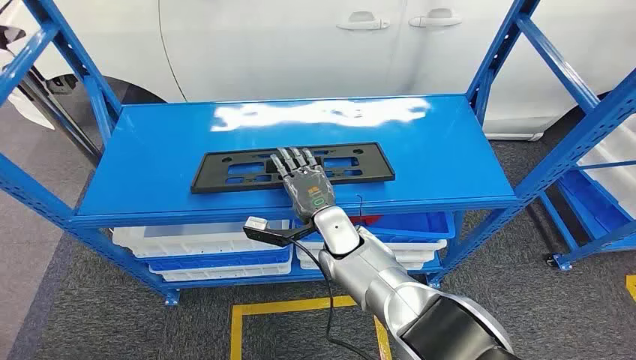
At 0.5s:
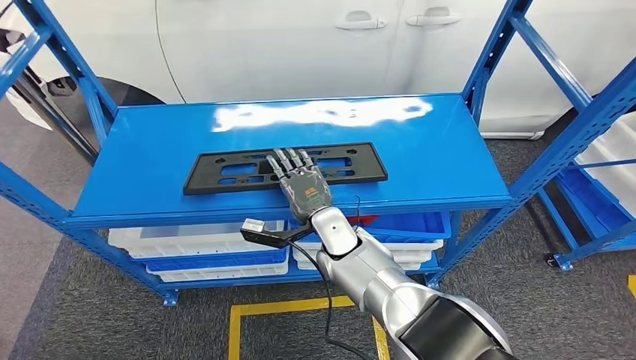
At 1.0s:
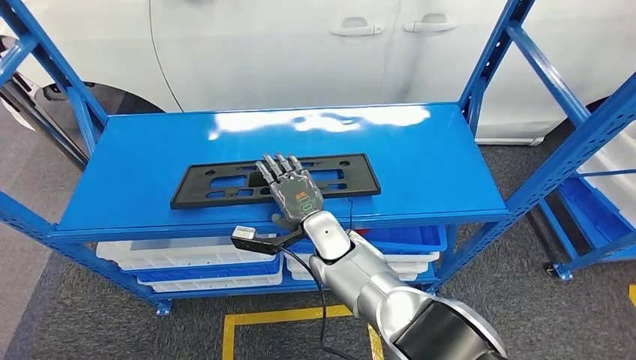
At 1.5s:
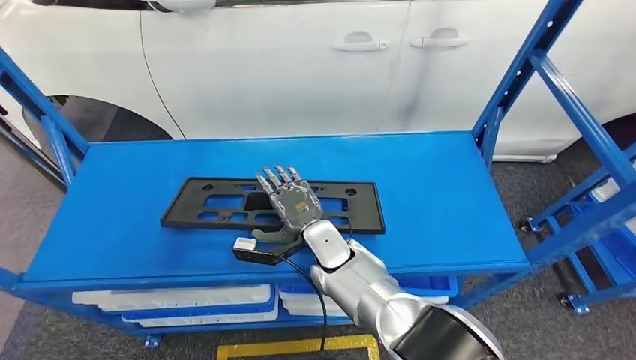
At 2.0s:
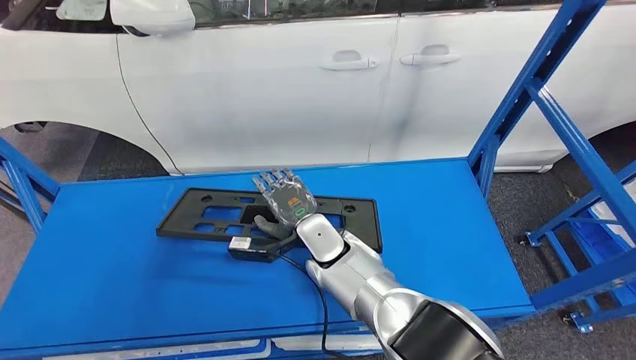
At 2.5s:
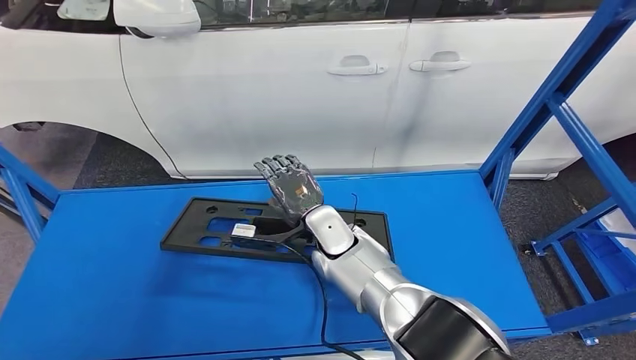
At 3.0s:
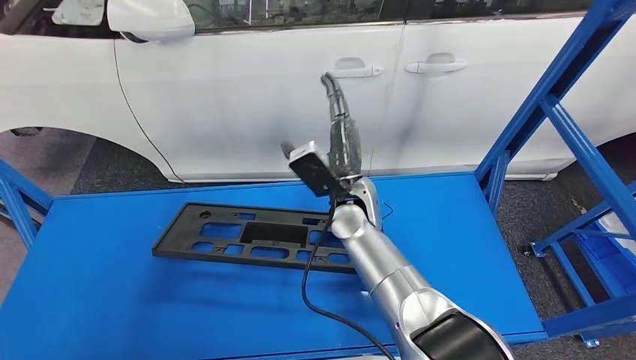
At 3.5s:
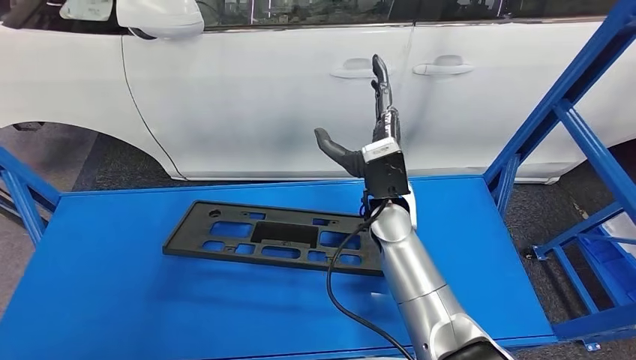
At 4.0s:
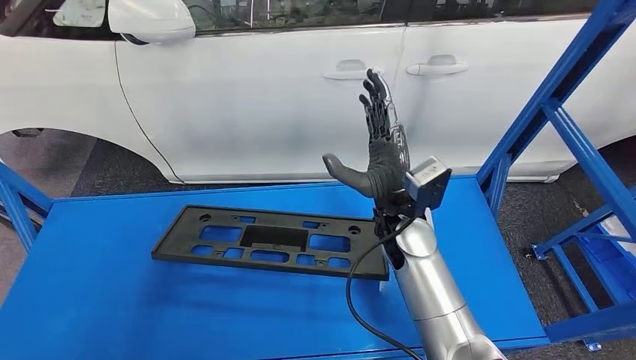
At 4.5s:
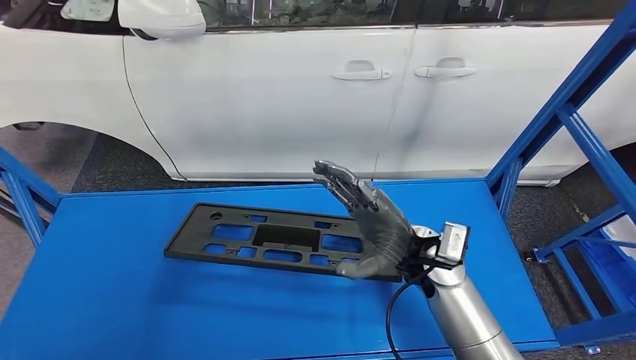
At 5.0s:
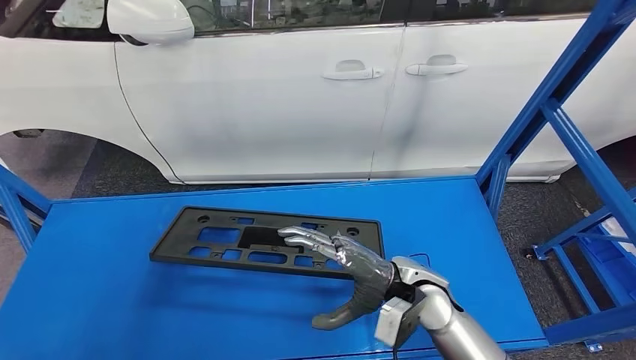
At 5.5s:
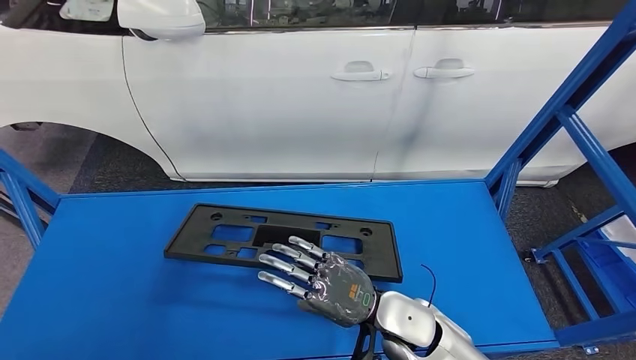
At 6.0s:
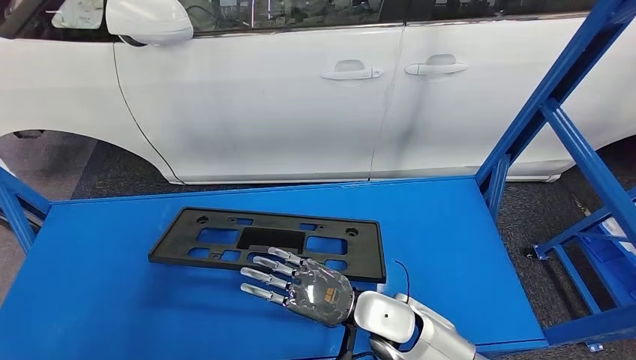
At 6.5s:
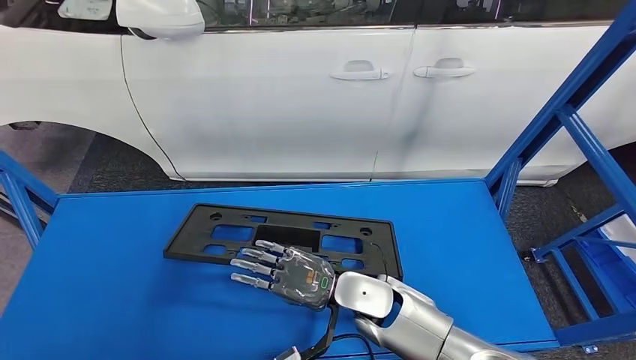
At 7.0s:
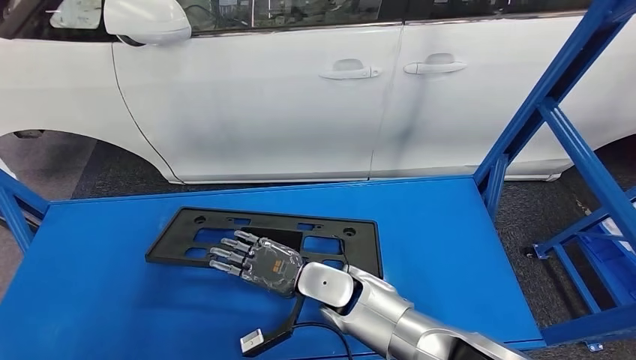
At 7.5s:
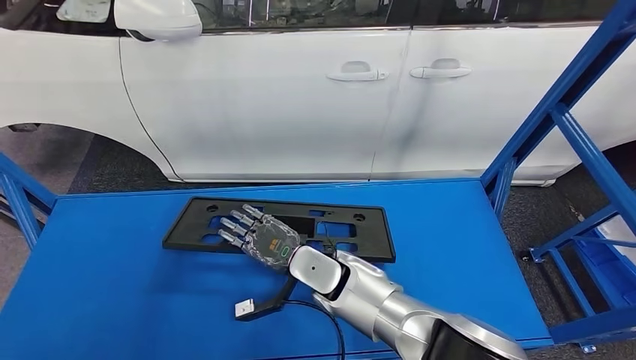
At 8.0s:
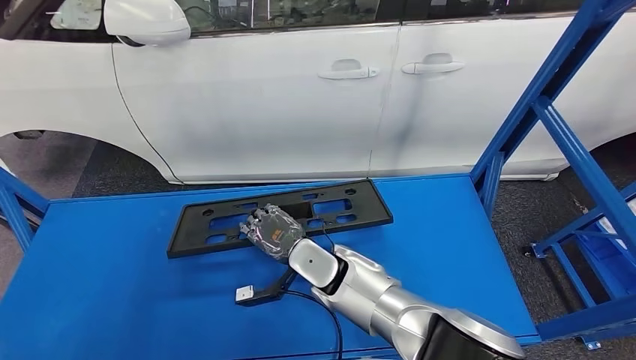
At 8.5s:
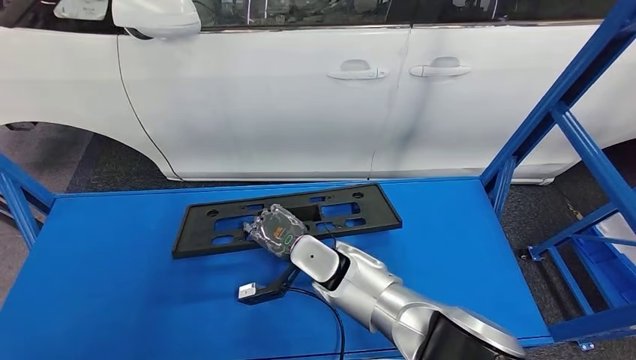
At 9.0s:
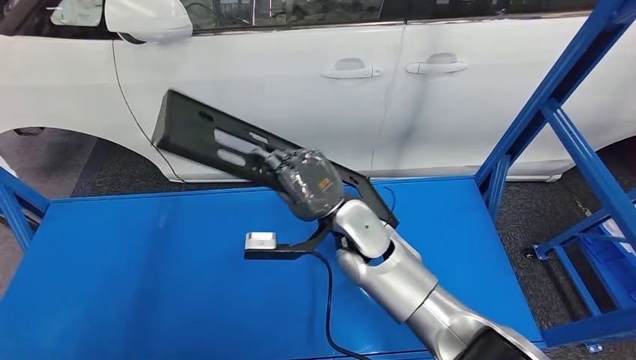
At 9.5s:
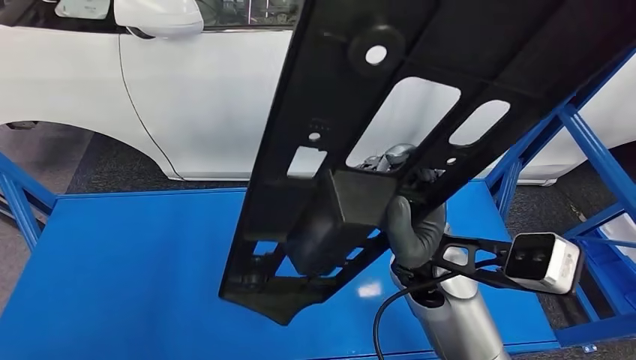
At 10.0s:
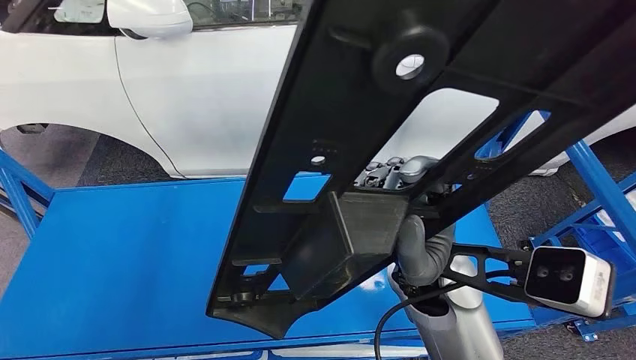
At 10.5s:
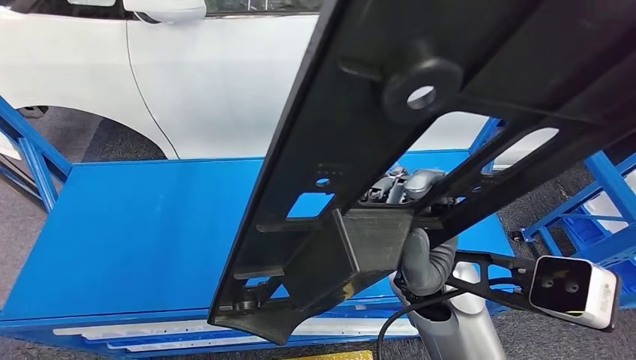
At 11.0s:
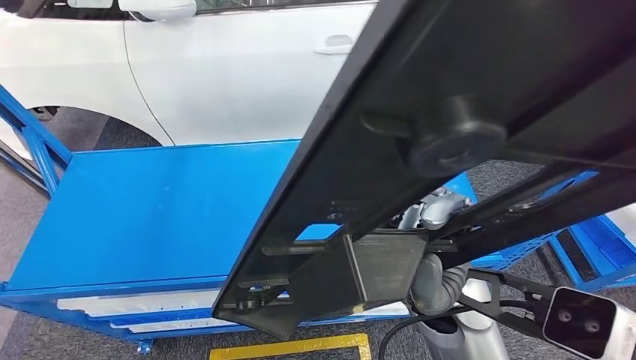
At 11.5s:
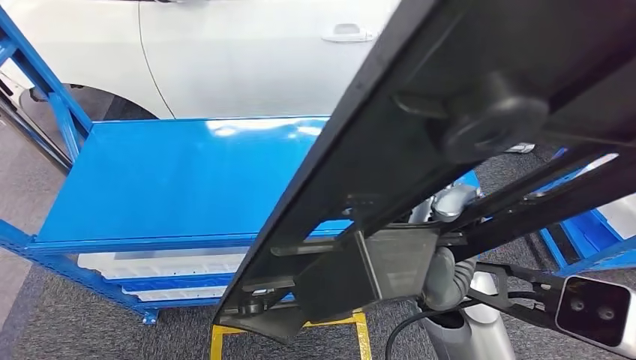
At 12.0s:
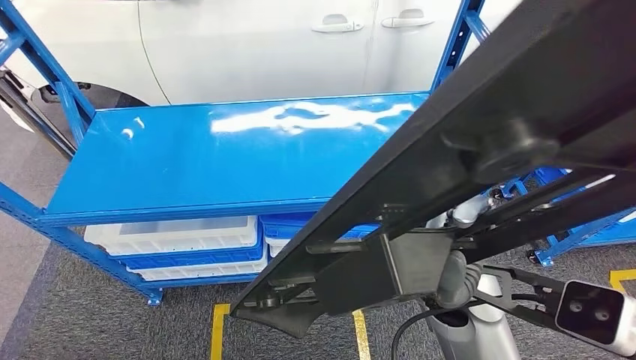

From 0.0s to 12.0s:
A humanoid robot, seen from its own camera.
Step, from 0.0s to 9.0s: Pick up the large material from the shelf.
From 4.0s to 6.0s: The right hand goes roughly 15 cm downward and backward.
From 6.0s to 8.0s: The right hand moves to the left and forward, some 15 cm.

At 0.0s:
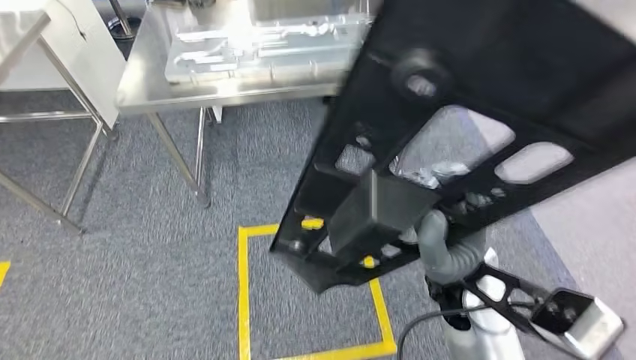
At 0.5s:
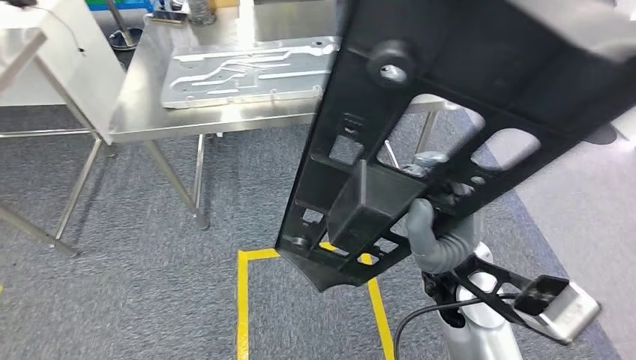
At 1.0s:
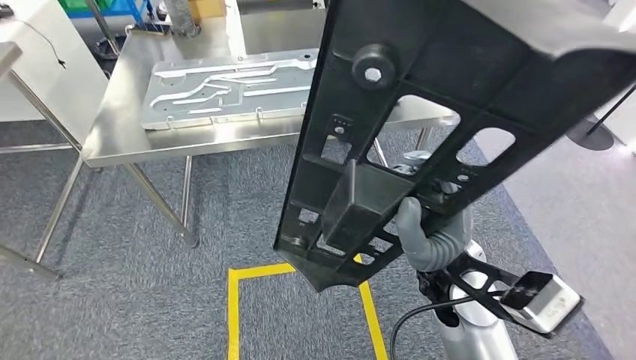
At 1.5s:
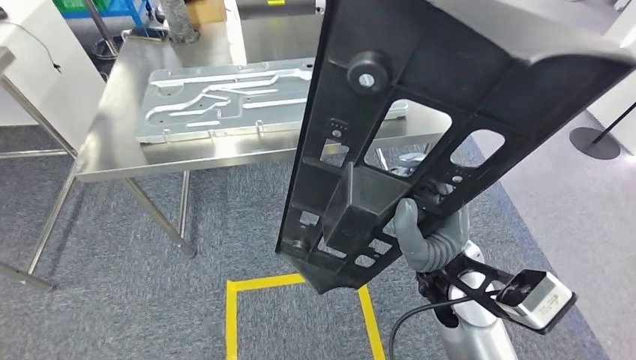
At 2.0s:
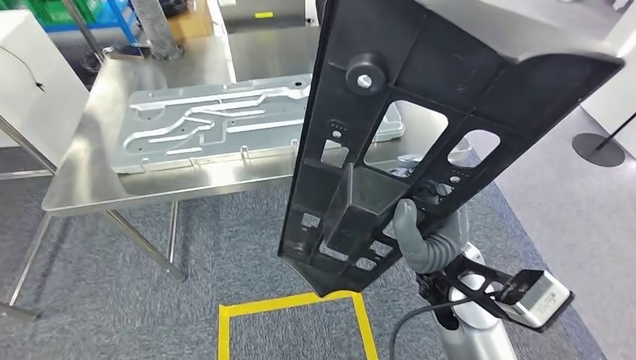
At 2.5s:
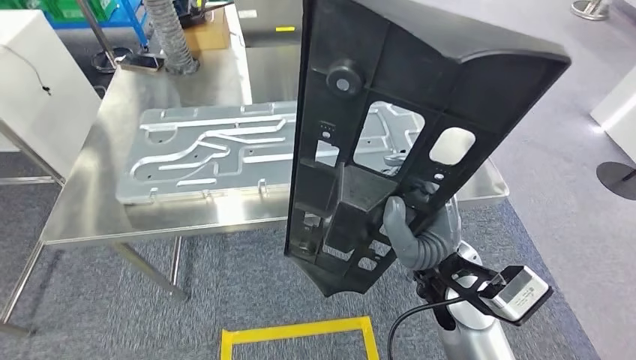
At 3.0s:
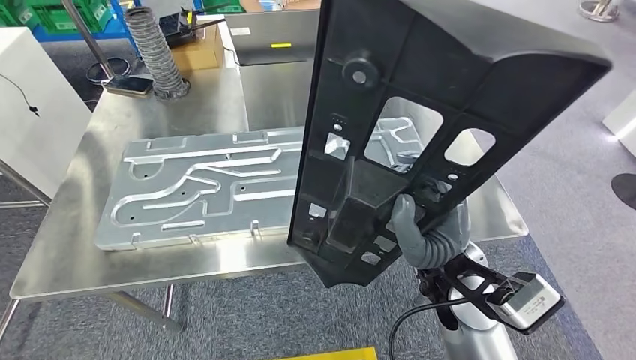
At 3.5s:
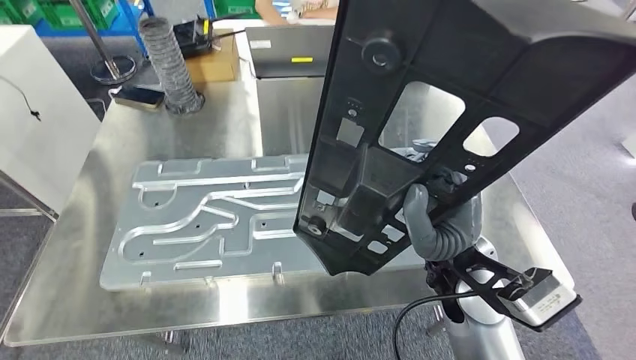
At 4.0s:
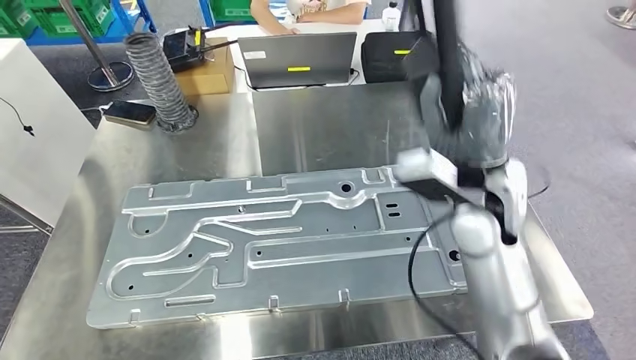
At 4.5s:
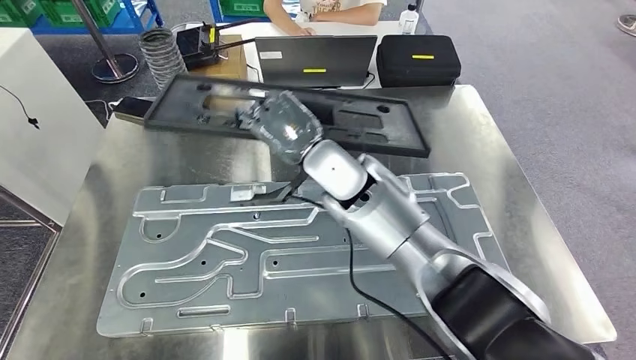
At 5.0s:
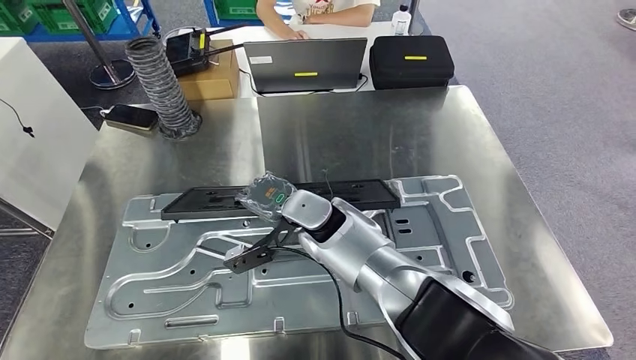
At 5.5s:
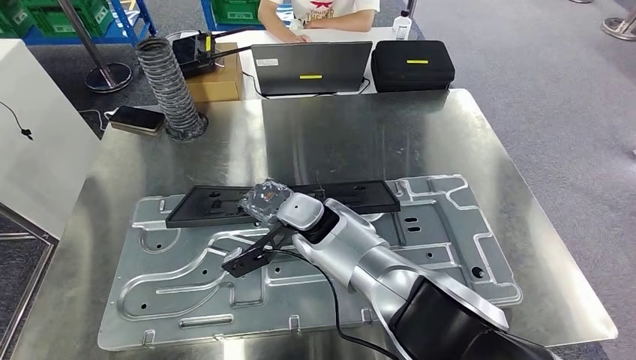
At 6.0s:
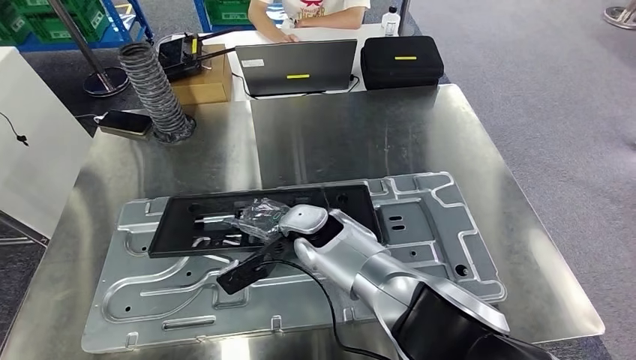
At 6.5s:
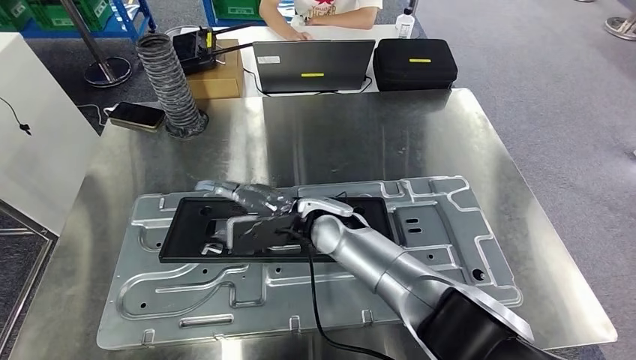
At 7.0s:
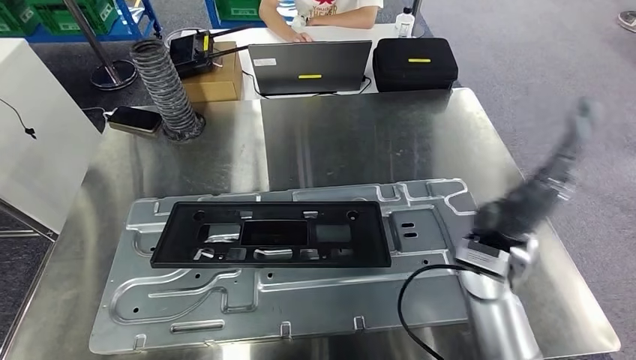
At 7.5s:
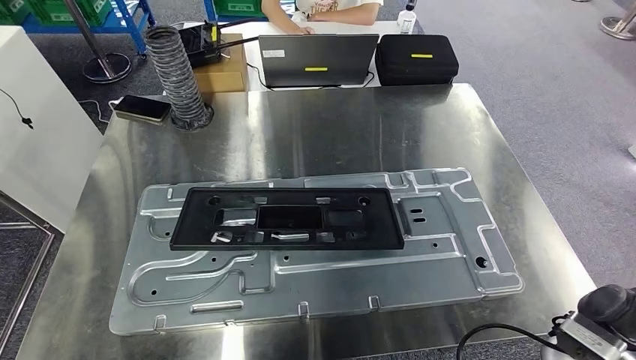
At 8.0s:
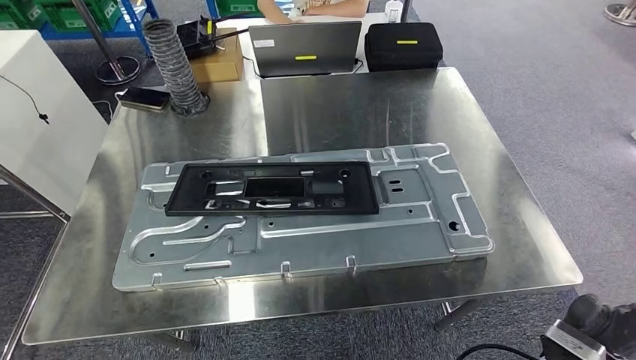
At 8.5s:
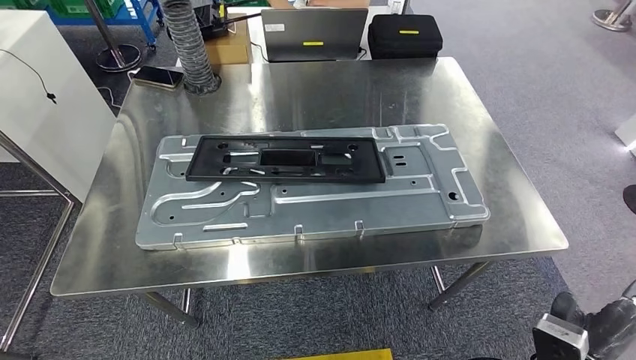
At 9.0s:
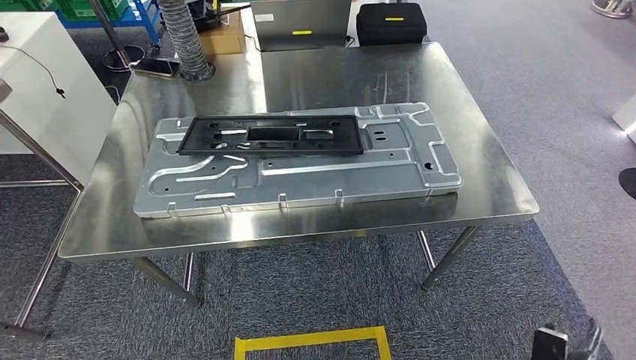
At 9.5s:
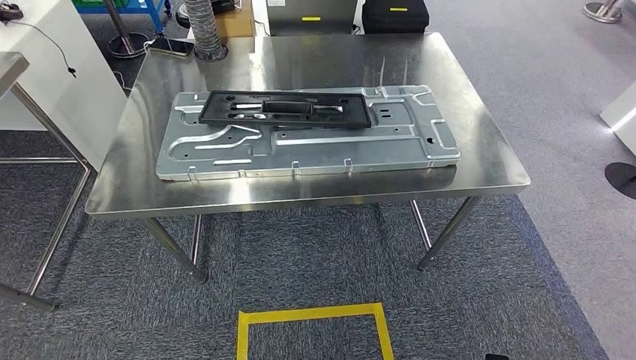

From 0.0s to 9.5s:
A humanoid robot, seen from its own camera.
Step, from 0.0s to 2.5s: Move the large material to the workbench.
Step, from 3.0s to 7.5s: Insert the large material into the corresponding slot on the workbench.
